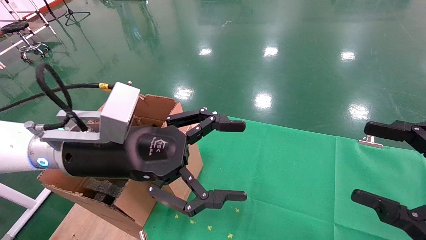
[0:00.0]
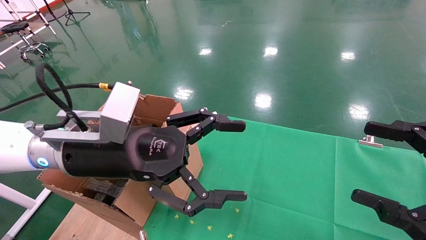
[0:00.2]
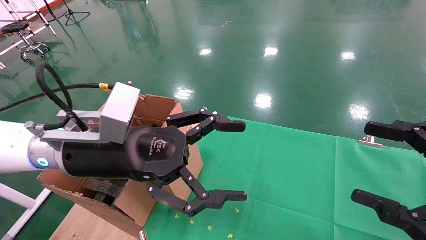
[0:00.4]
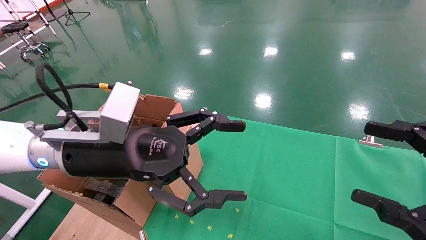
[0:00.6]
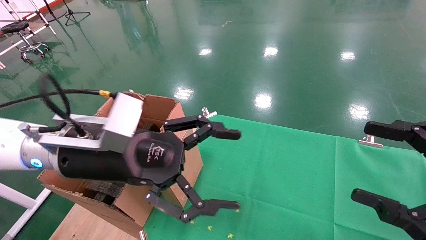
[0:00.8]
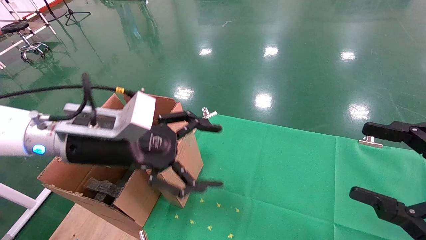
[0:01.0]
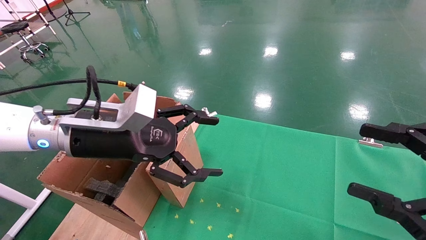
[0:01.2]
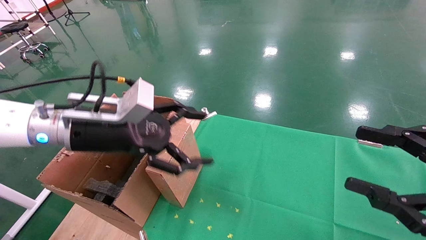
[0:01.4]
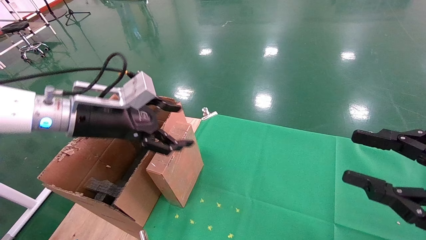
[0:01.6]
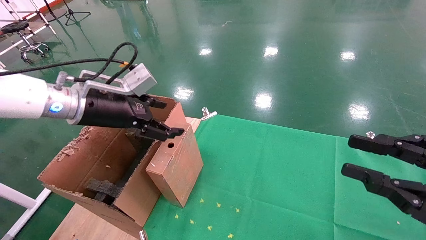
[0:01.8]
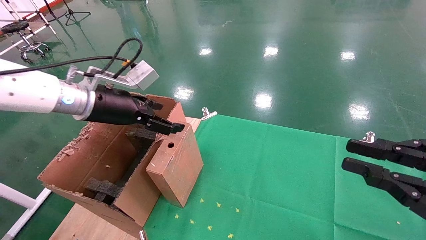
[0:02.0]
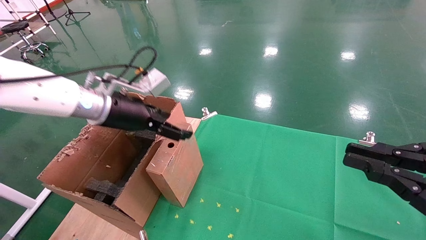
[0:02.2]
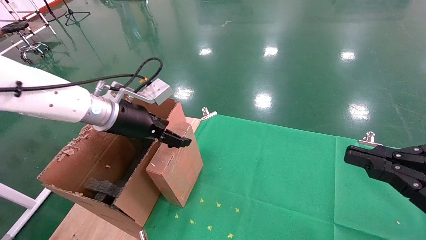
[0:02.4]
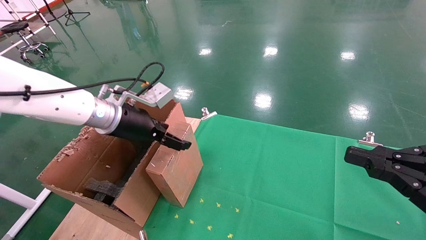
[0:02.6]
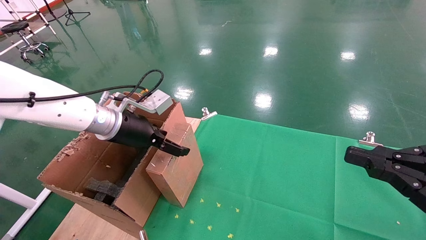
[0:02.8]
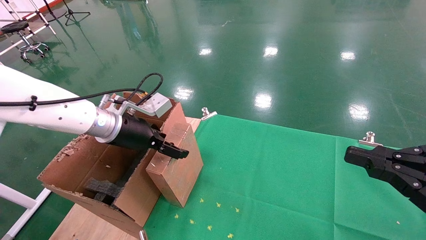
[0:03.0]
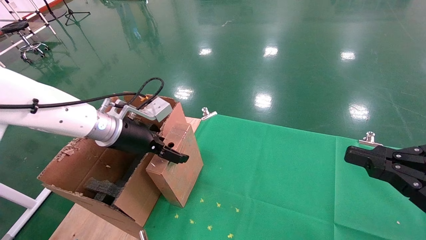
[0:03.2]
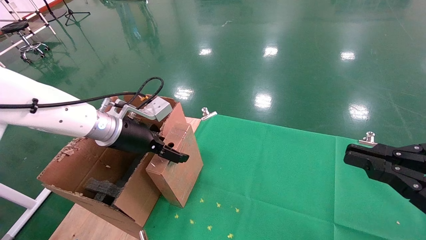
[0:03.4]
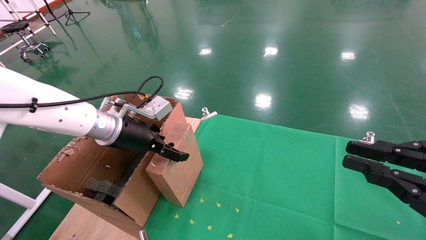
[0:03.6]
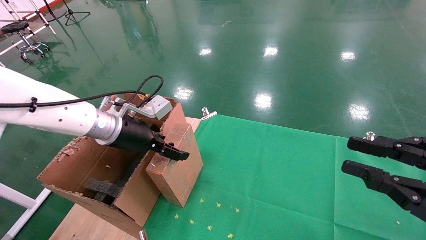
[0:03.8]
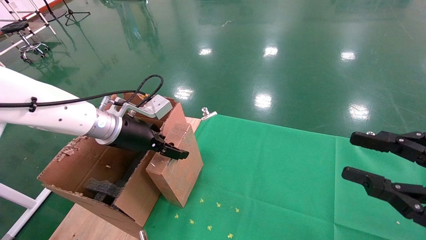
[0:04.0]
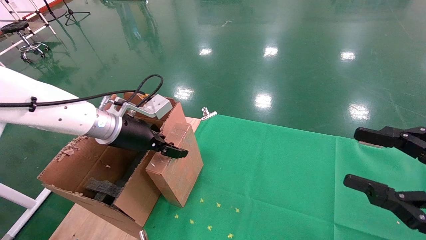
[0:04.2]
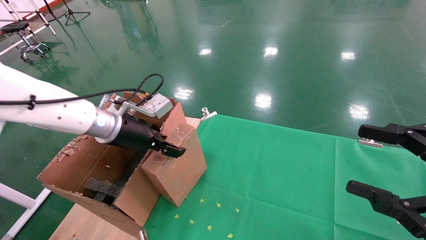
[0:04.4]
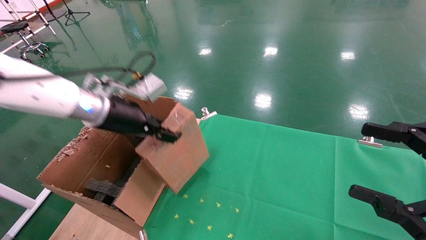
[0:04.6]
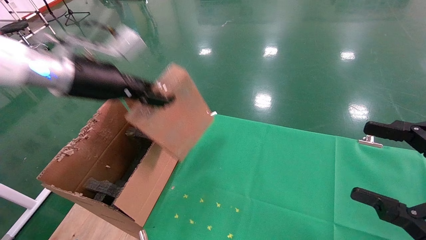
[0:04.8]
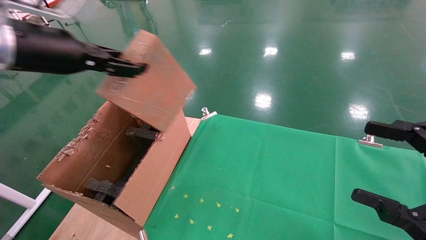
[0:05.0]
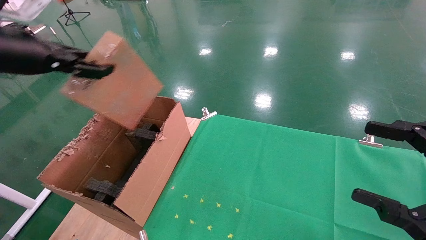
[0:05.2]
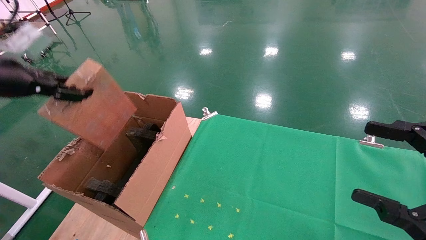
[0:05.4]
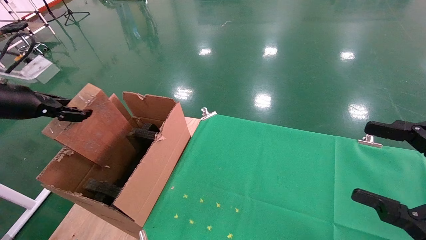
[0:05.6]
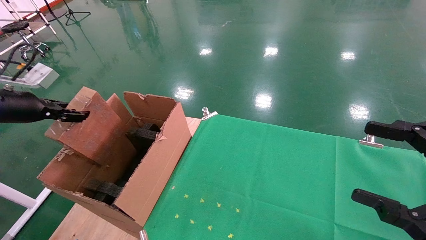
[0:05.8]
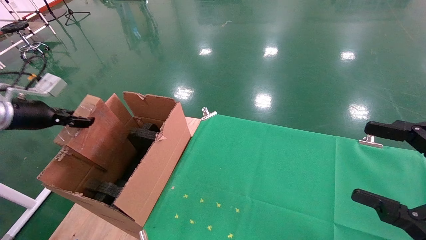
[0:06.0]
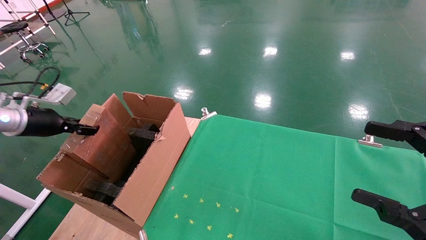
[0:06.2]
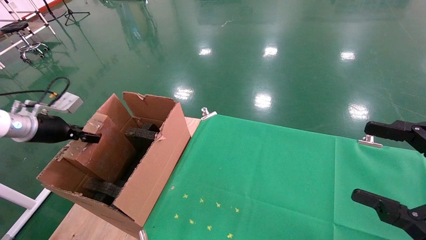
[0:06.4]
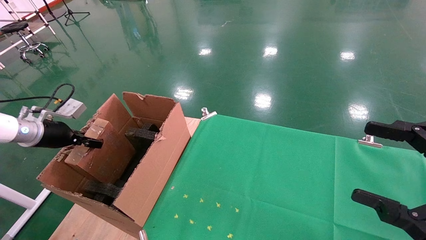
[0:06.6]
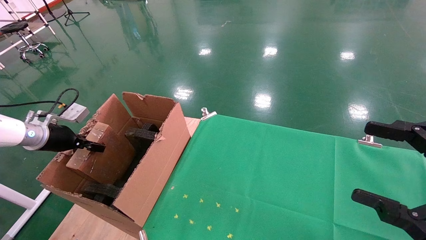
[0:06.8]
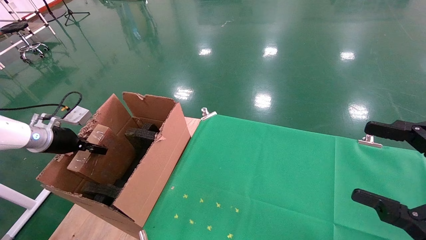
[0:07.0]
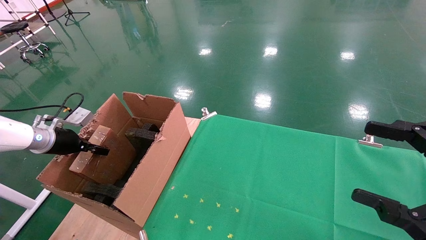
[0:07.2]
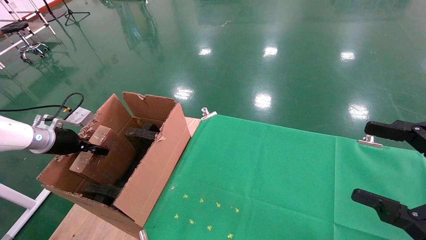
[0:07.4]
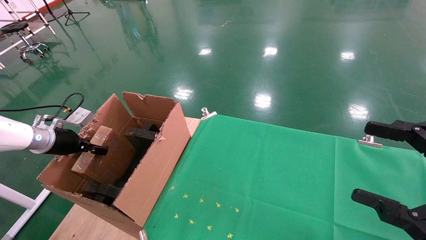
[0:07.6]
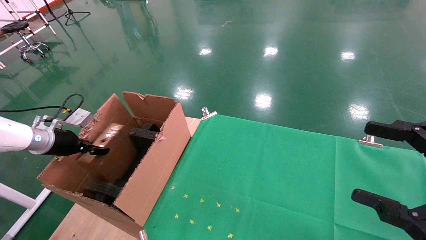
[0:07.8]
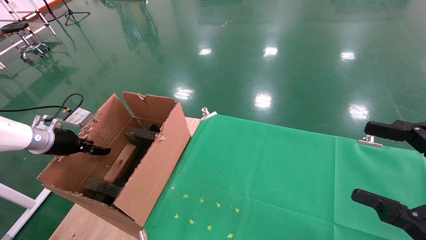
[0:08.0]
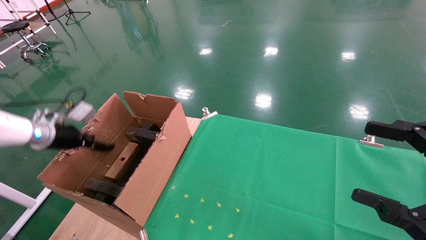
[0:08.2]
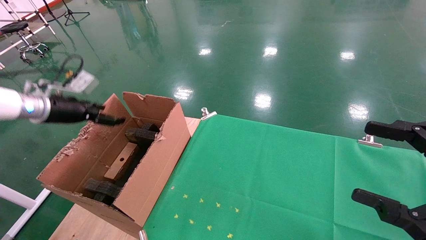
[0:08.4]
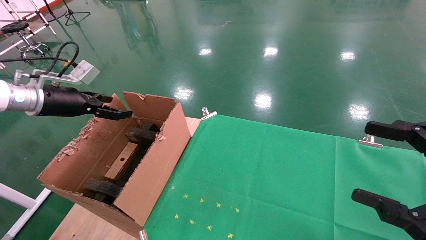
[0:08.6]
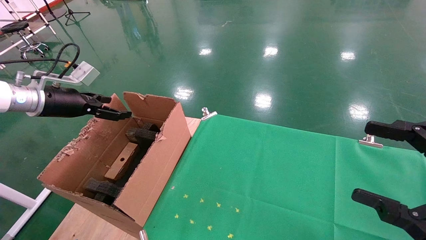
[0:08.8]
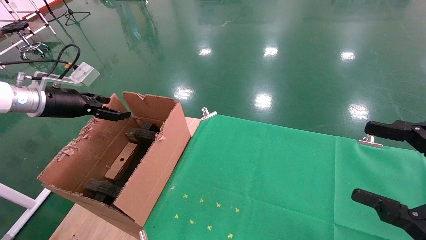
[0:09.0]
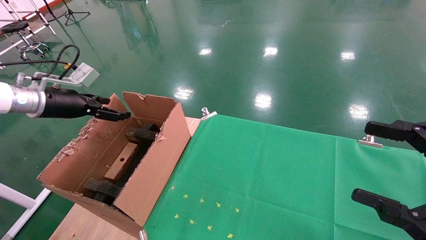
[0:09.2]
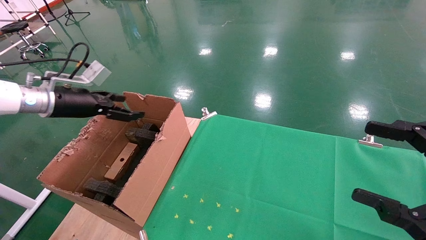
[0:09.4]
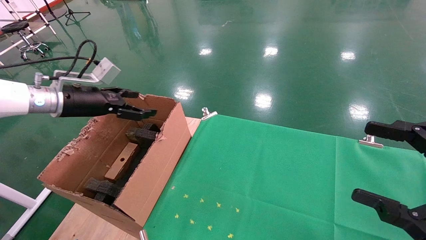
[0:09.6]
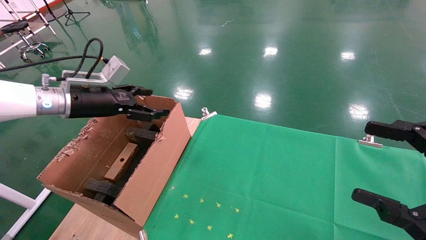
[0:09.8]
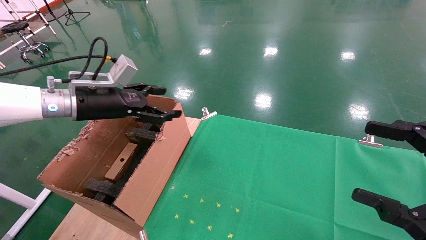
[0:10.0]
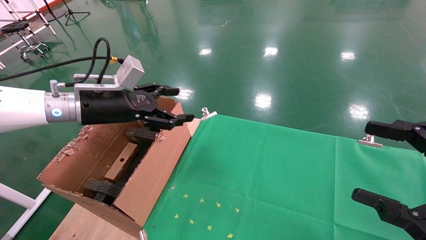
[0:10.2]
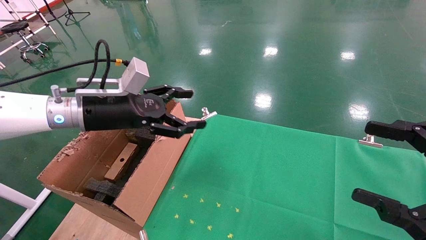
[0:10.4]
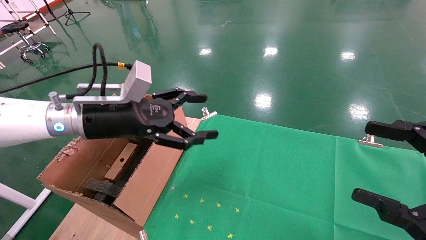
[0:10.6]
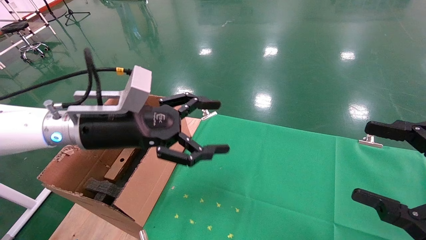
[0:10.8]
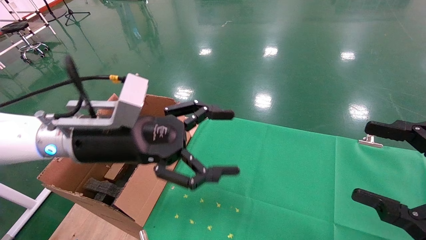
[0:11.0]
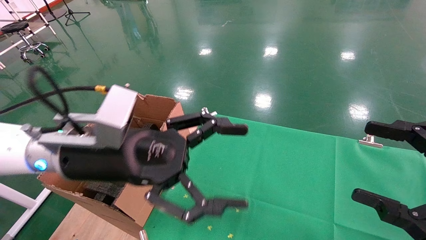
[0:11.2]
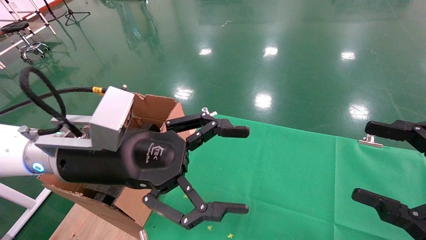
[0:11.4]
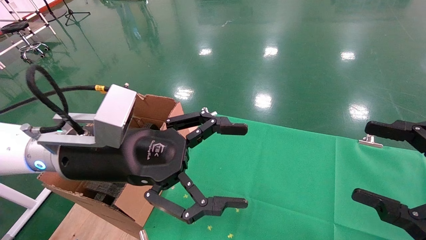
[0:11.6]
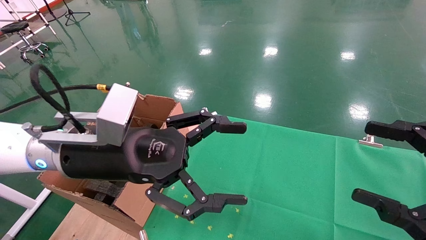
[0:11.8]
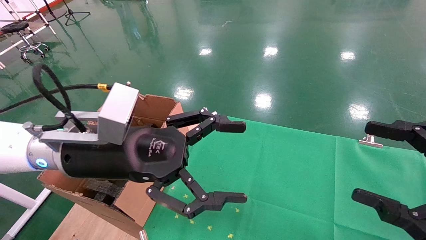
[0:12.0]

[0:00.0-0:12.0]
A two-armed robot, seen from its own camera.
Task of the whole recording: using a robotic arm to pick up a cardboard box and palace it the carton.
Step, 0:00.8 to 0:04.2: Pick up the mouse and the power cord paper box.
Step, 0:04.4 to 0:08.4: Place the mouse and the power cord paper box into the container.
0:00.0 to 0:01.6: The left gripper moves to the left and forward, some 10 cm. Meanwhile the right gripper closes.
0:01.6 to 0:03.0: The right gripper closes up, while the left gripper heads forward, covering about 5 cm.
0:03.0 to 0:04.4: The left gripper closes up, while the right gripper opens its fingers.
0:04.4 to 0:06.0: The left gripper shifts some 25 cm to the left, and closes up; the right gripper opens its fingers.
0:06.0 to 0:07.6: The left gripper goes approximately 10 cm downward.
0:07.6 to 0:09.0: The left gripper goes approximately 10 cm upward and to the right, and opens.
0:09.0 to 0:10.4: The left gripper heads to the right, covering about 15 cm.
0:10.4 to 0:12.0: The left gripper is displaced backward and to the right by approximately 15 cm.

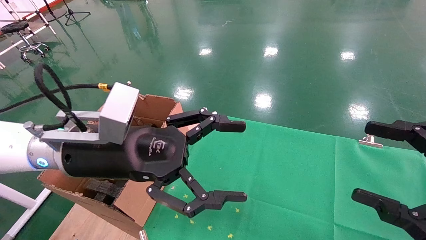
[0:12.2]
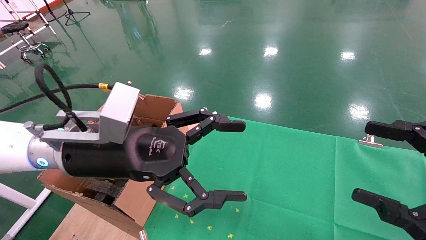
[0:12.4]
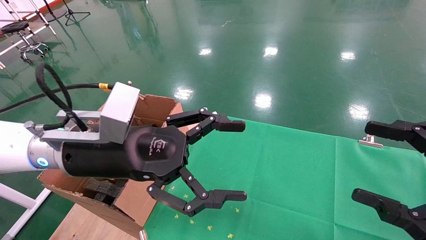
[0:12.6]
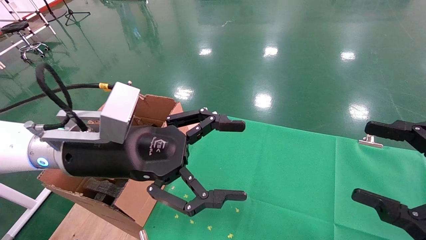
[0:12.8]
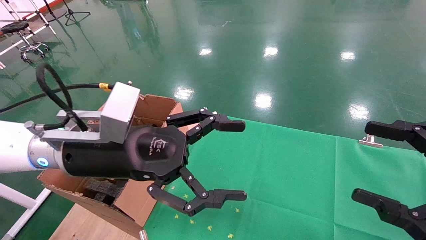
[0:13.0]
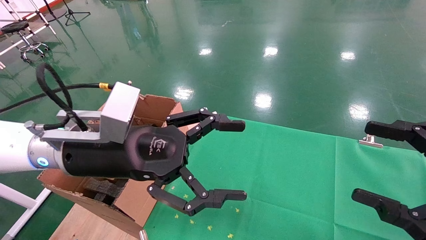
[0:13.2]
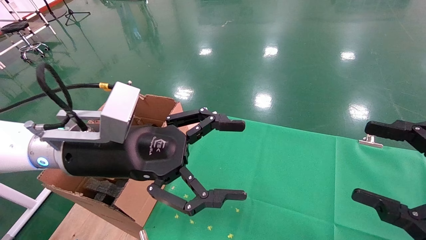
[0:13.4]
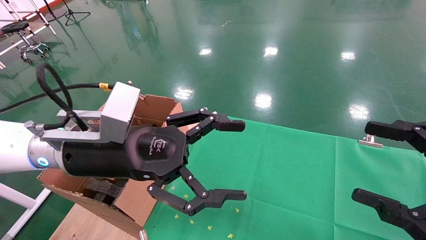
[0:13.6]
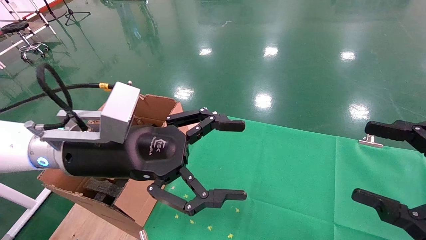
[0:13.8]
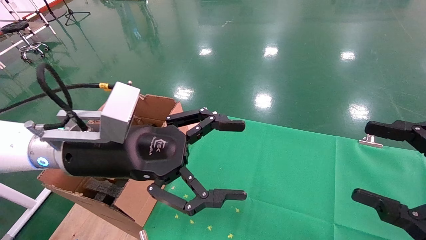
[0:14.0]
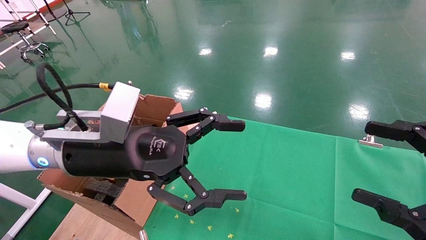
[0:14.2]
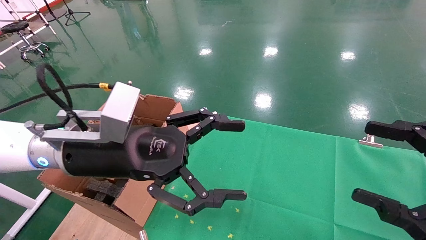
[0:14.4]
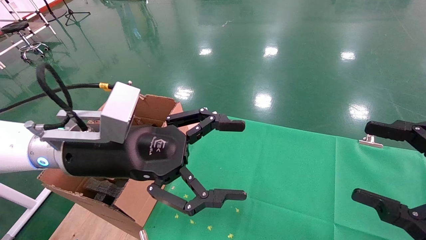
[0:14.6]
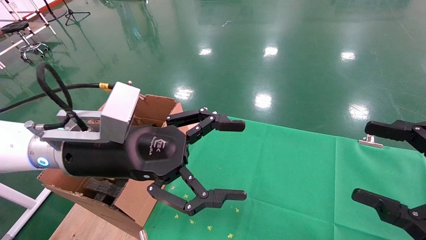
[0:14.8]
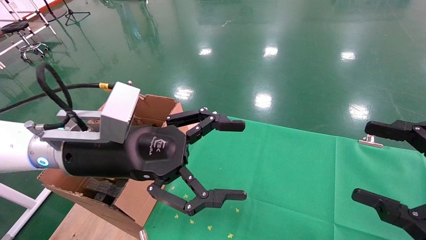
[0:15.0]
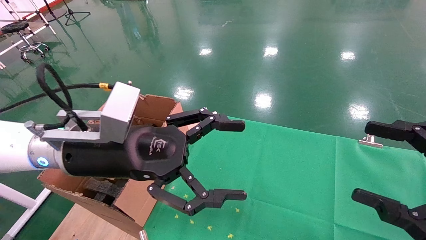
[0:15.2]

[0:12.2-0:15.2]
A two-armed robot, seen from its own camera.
Task of the whole recording: using a robotic arm to pick up a cardboard box and palace it the carton.
0:12.2 to 0:15.2: Neither gripper changes place.
